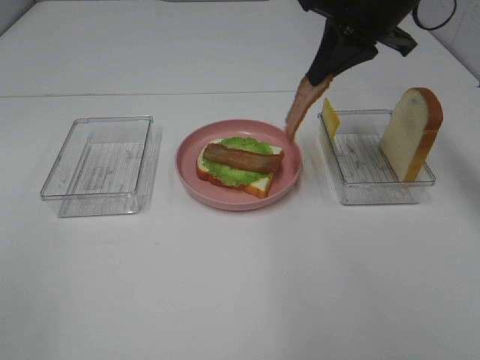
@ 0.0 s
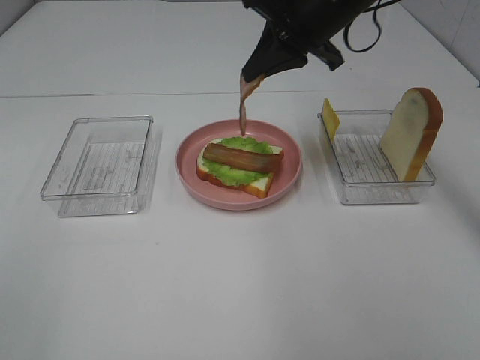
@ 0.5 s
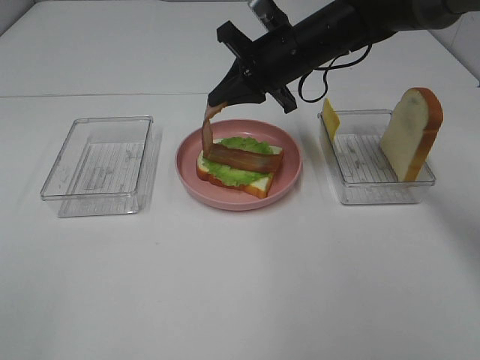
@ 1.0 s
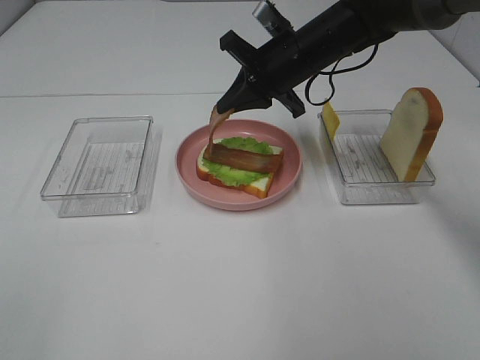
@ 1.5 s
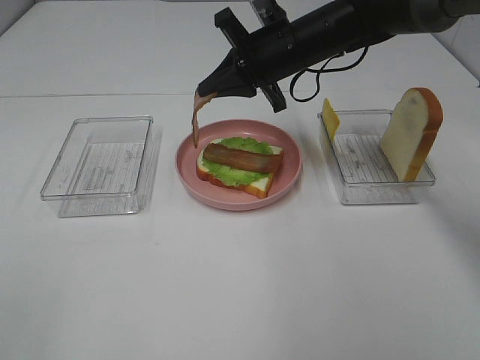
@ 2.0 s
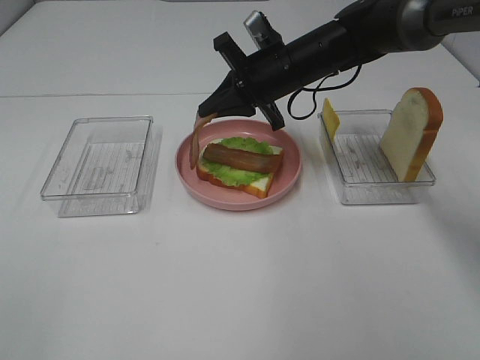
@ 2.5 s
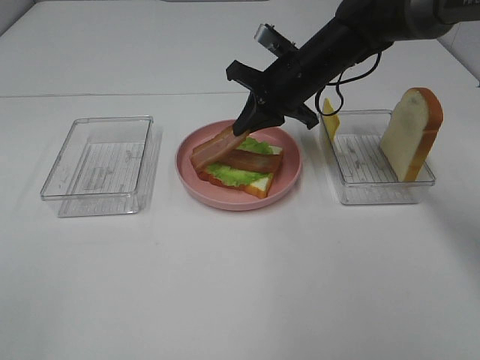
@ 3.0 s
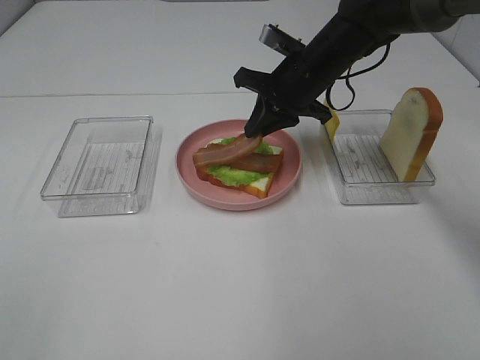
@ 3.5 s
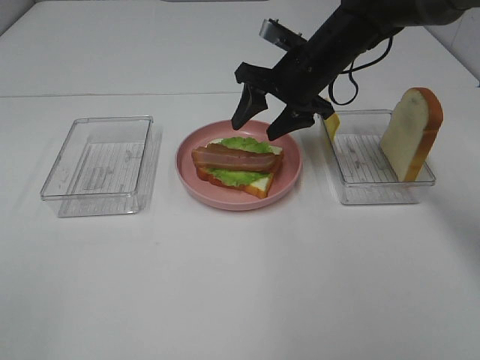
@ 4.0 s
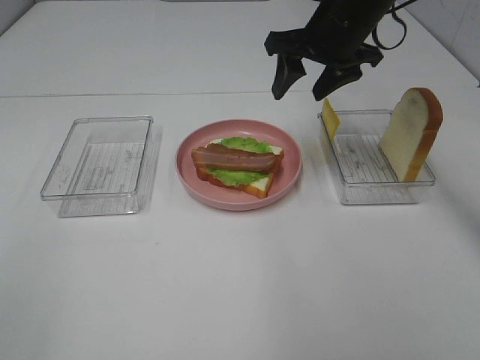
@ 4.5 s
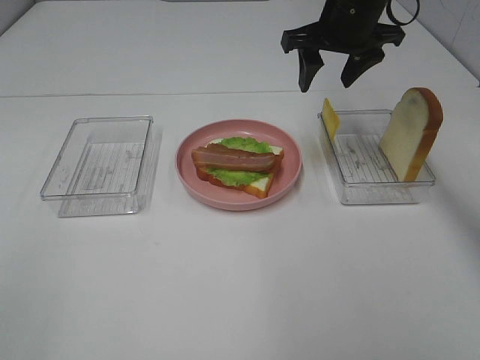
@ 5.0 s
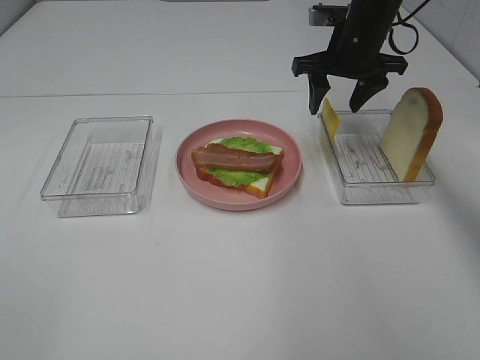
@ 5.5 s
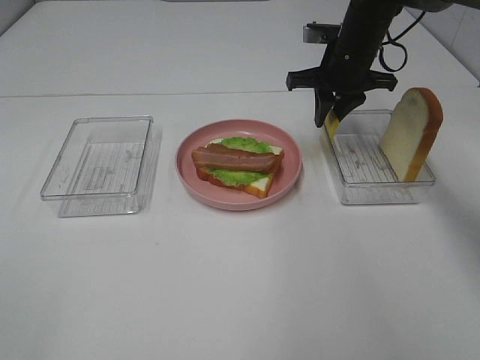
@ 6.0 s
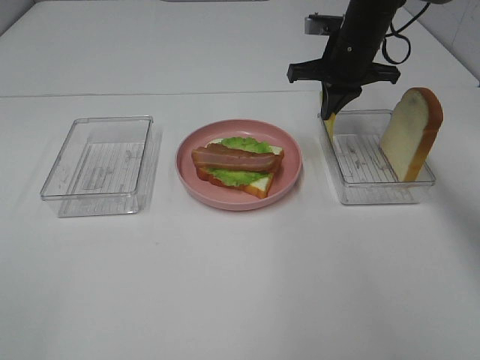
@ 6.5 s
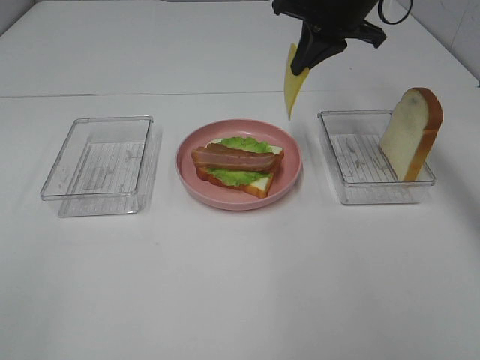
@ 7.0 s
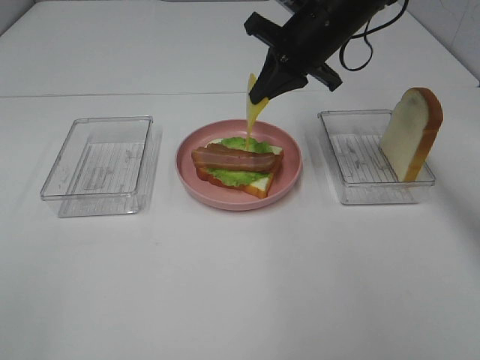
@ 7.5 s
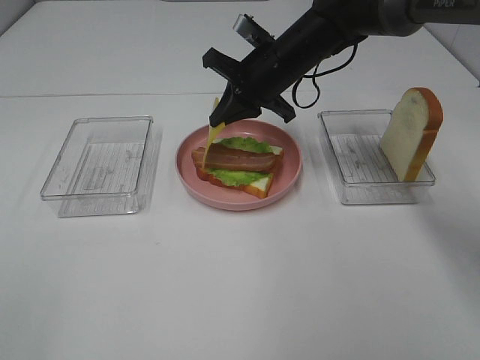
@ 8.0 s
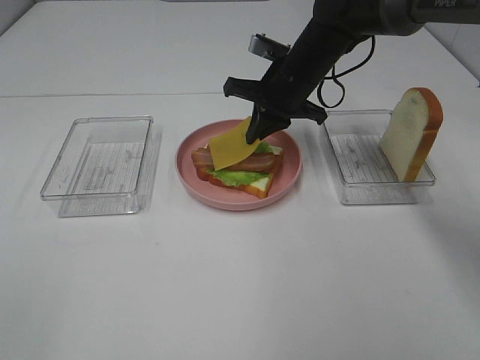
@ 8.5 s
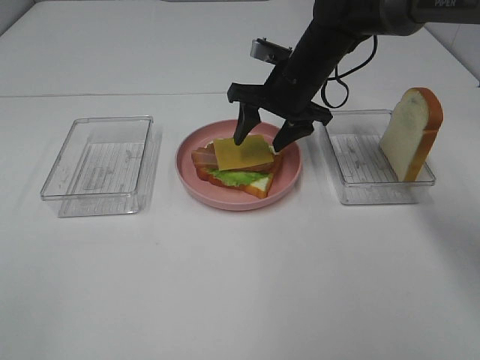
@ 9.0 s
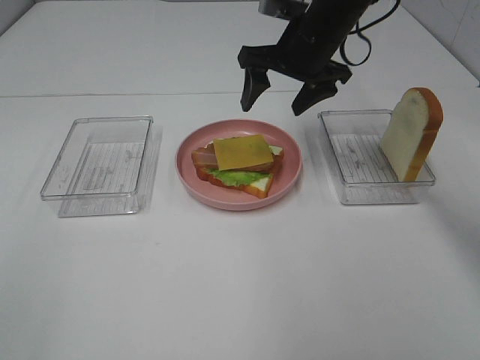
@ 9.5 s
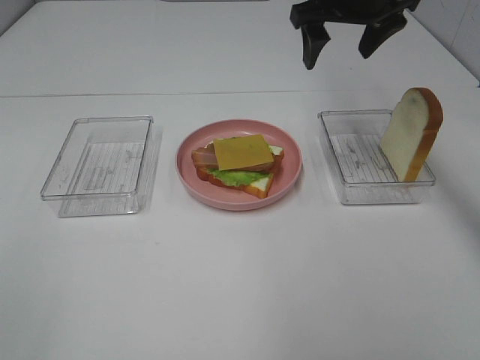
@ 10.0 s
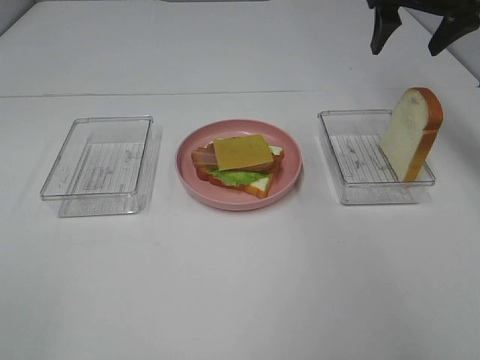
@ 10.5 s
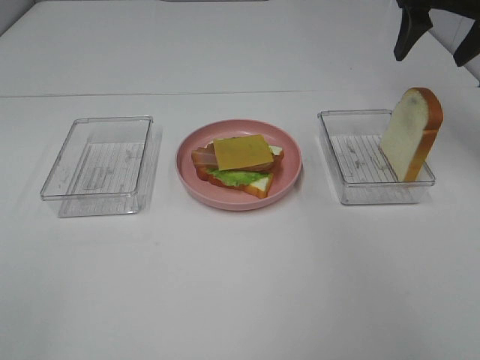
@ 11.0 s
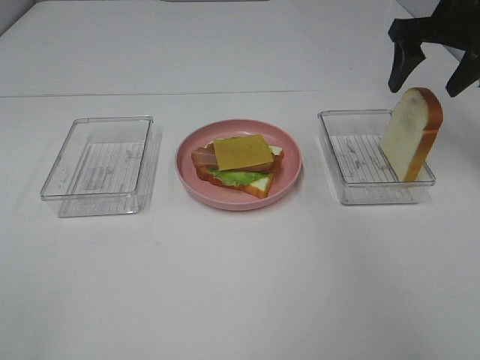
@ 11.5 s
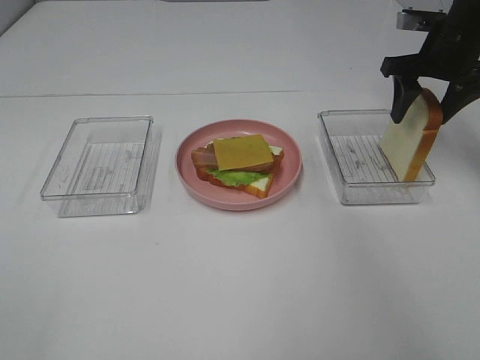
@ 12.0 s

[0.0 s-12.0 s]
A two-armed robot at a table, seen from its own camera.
Task of the whole recording: Make sandwiches.
Step, 0.0 to 3.5 s: Right hand:place bacon on bacon.
Step, 4.0 to 6.0 s: Right hand:grab the cheese slice.
Step, 6.5 to 9.0 s: Right hand:place the cheese slice on top of the bacon.
0.0 to 2.0 s: The right gripper heads downward and to the left, covering approximately 15 cm.
2.0 to 4.0 s: The right gripper opens its fingers.
4.0 to 6.0 s: The right gripper moves to the right, approximately 5 cm, and closes.
6.0 to 8.0 s: The right gripper heads to the left, covering approximately 10 cm, and moves about 10 cm upward and comes back.
8.0 to 10.0 s: The right gripper is displaced upward and to the right by some 15 cm, and opens.
10.0 to 12.0 s: The right gripper shifts about 15 cm to the right and downward.

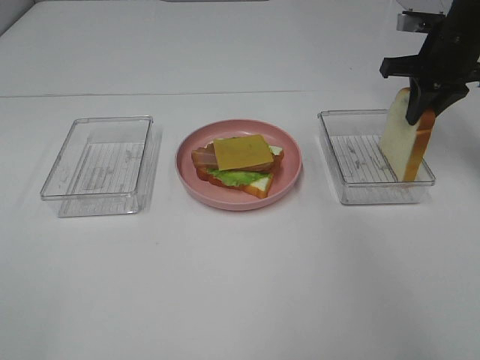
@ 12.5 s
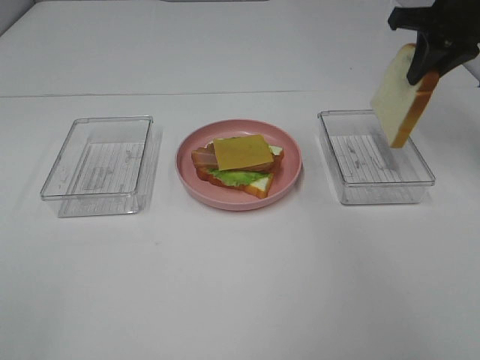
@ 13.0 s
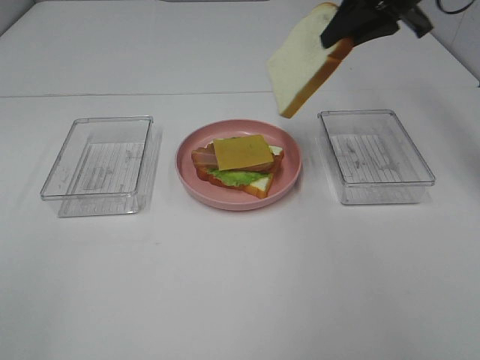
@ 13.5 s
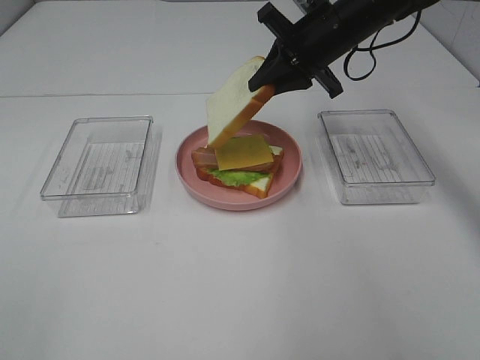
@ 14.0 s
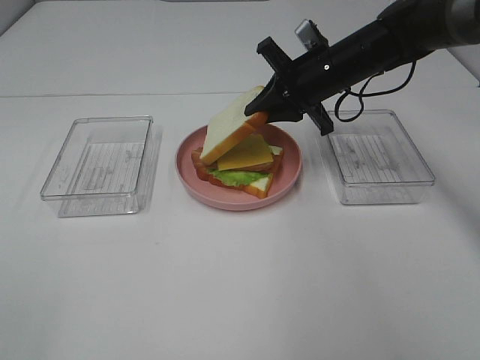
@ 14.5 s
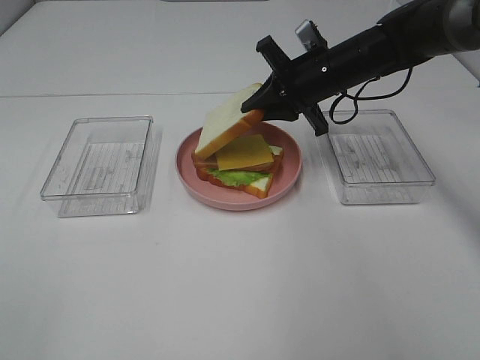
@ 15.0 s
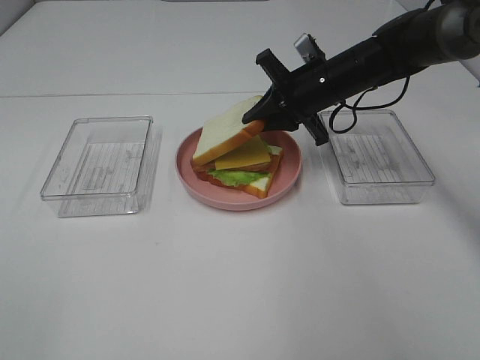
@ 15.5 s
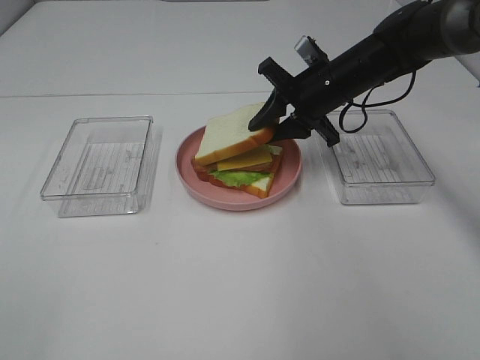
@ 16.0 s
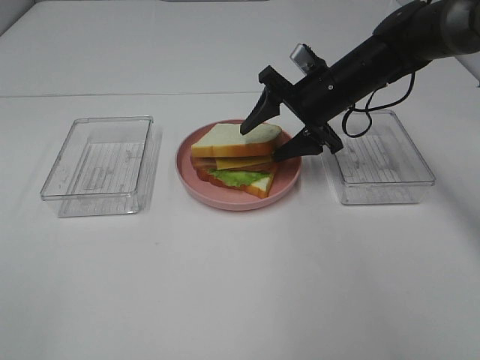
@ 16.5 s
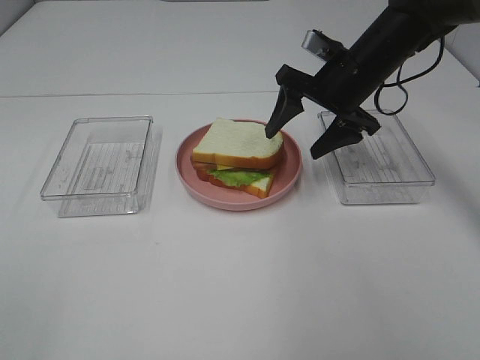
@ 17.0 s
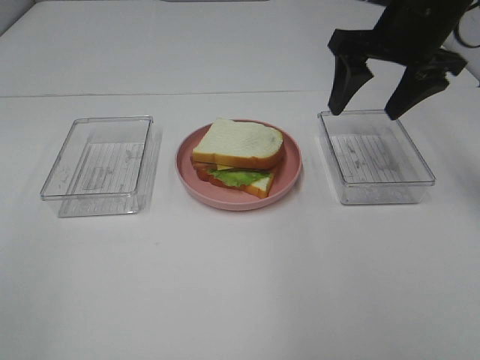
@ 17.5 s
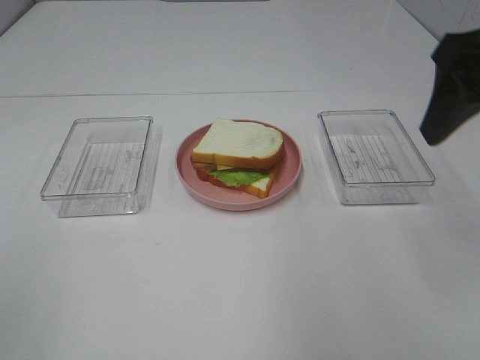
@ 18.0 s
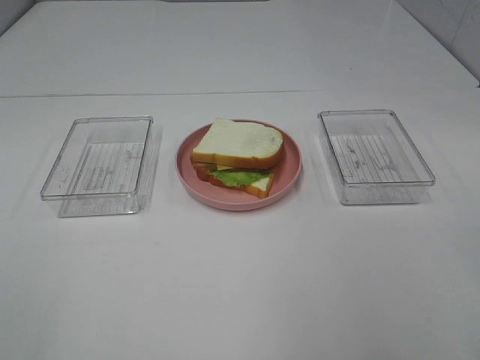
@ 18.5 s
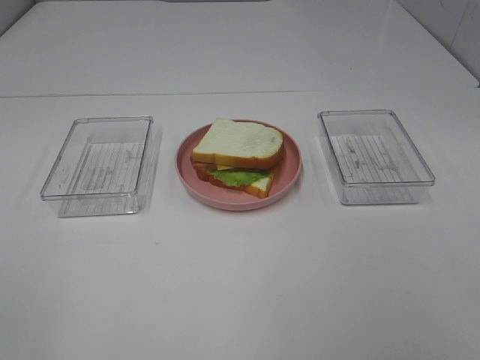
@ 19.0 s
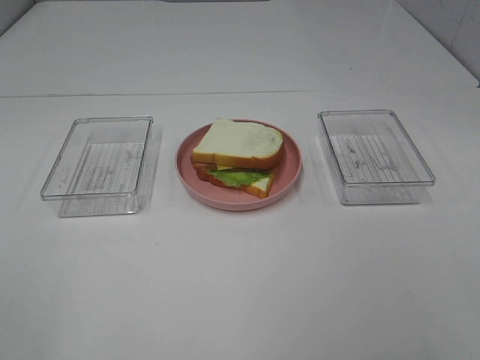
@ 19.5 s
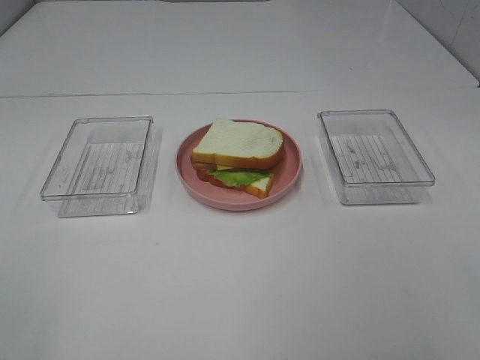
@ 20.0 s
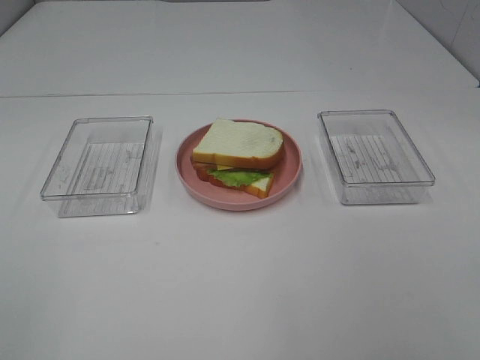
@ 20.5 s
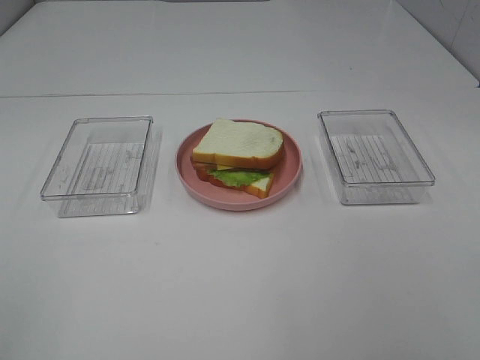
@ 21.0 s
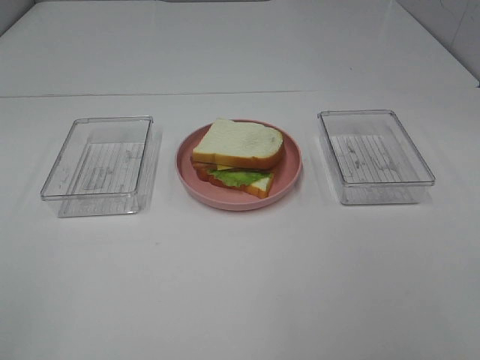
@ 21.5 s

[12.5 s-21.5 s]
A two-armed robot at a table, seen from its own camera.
Task of the whole recording: Make sandwiches.
Step, 12.5 to 16.5 s: Right hand:place the bread slice on the cheese slice.
12.5 to 14.5 s: The right gripper moves to the left, some 15 cm.
14.5 to 17.0 s: The right gripper opens its fingers.
17.0 to 19.5 s: The right gripper travels backward by about 40 cm.

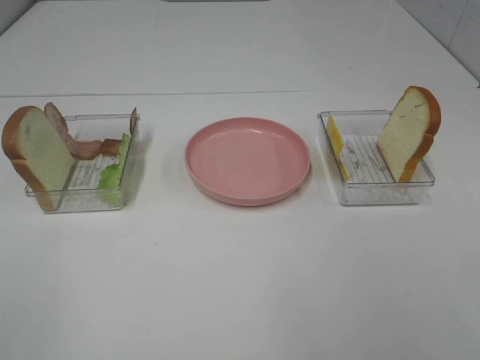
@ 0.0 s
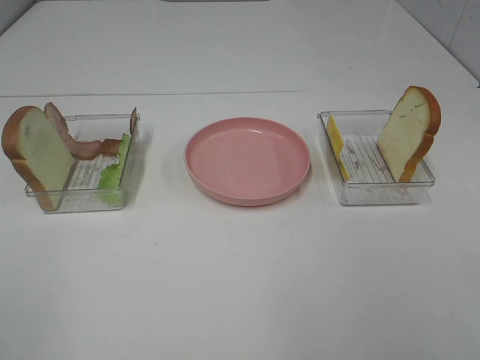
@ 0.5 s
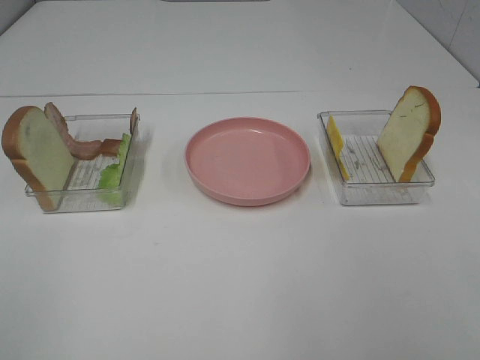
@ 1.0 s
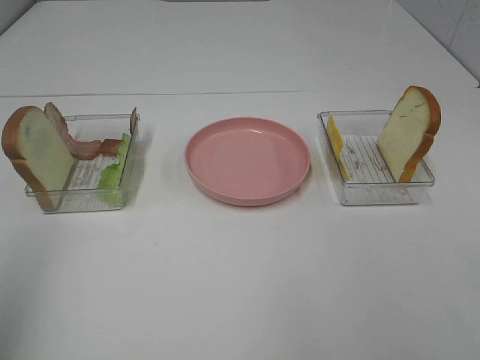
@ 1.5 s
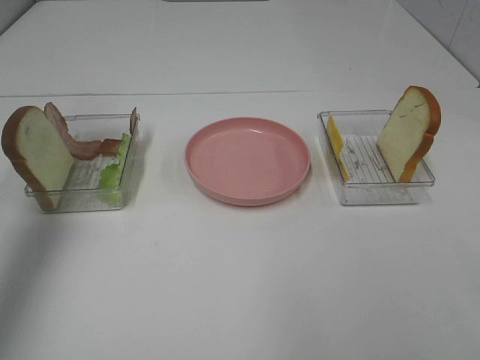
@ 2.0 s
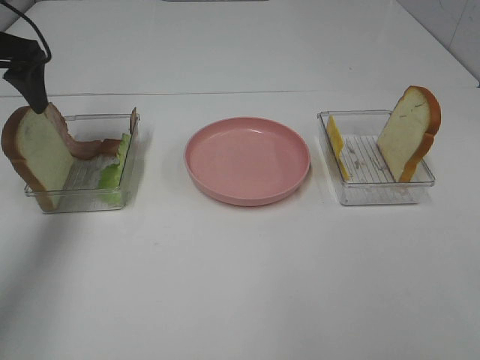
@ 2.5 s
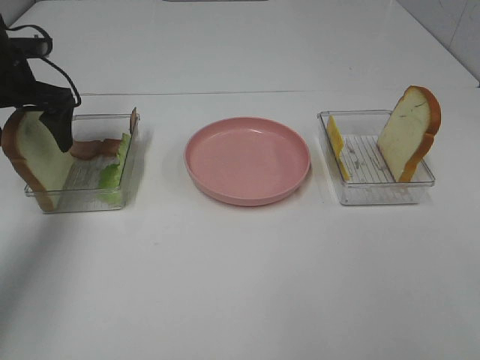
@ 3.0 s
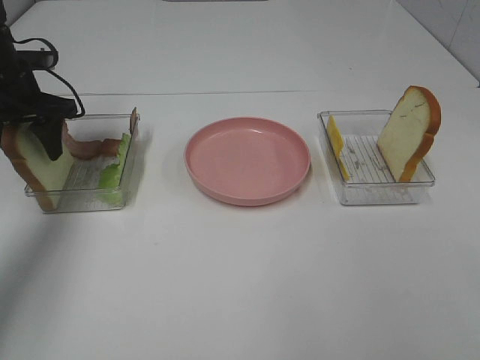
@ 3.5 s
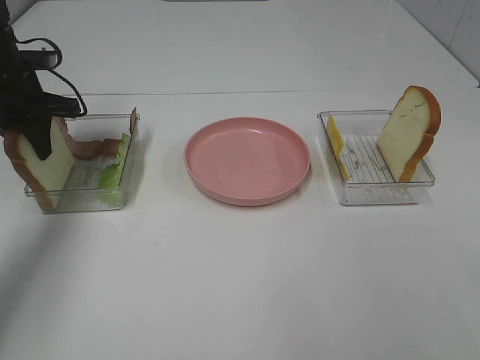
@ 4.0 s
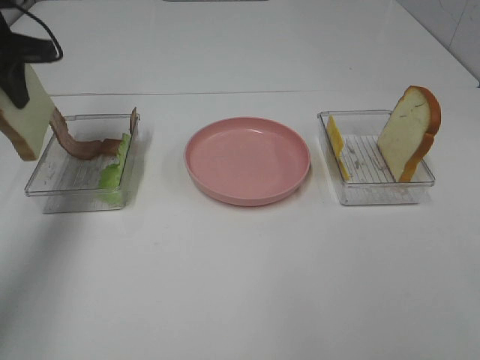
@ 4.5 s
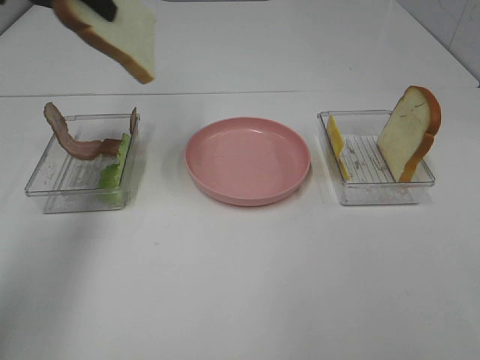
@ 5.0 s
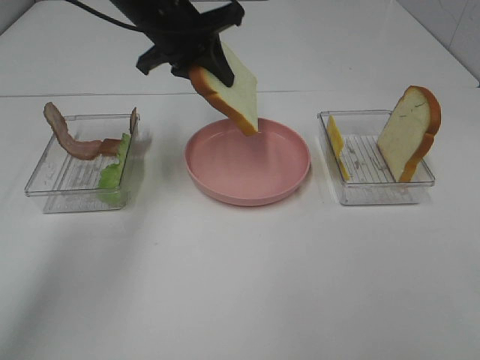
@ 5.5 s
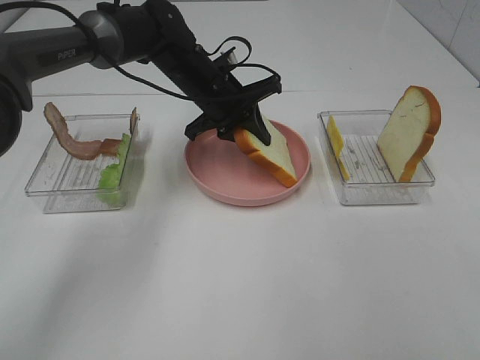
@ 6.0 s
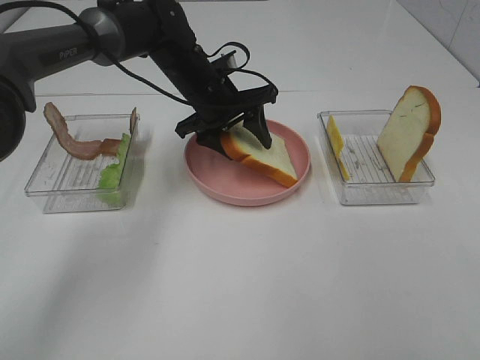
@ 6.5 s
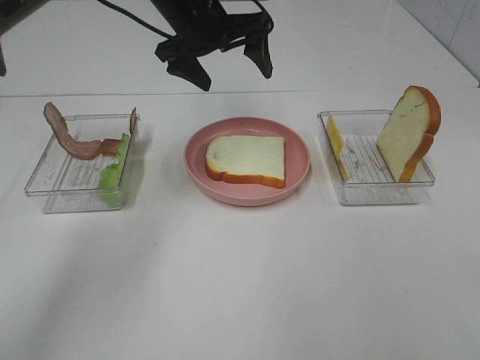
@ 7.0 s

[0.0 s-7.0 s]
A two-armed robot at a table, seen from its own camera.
Task of the whole recording: Make sandwiches.
Step, 0.0 to 3.5 s: Left hand:grab the bread slice.
Step, 4.0 to 7.0 s: Left hand:place the bread slice on the plate.
0.0 to 2.0 s: The left gripper heads forward, covering approximately 30 cm.
2.0 to 3.5 s: The left gripper travels downward and forward by roughly 20 cm, and closes.
3.5 to 5.0 s: The left gripper shifts about 20 cm upward and to the right.
5.0 to 7.0 s: The left gripper moves to the right and downward, about 20 cm, and opens up.
